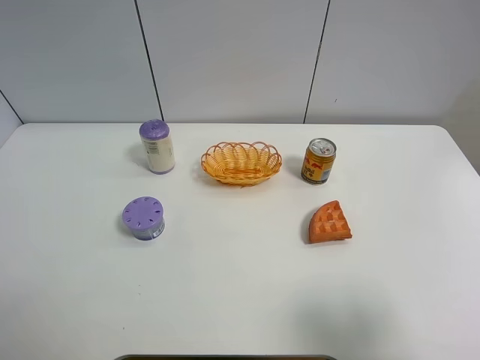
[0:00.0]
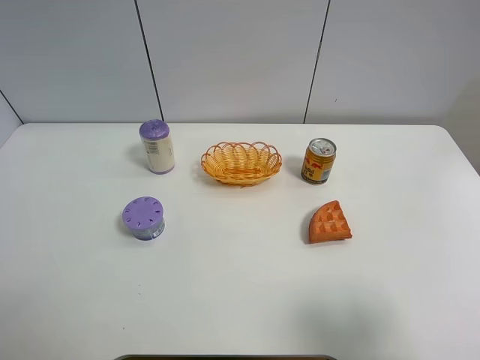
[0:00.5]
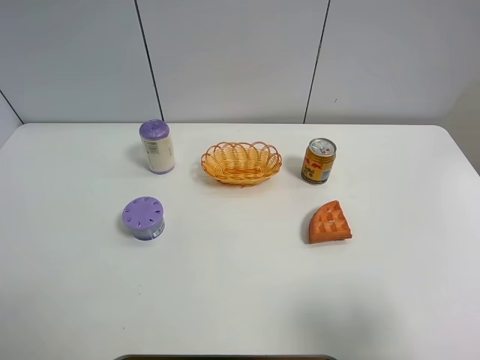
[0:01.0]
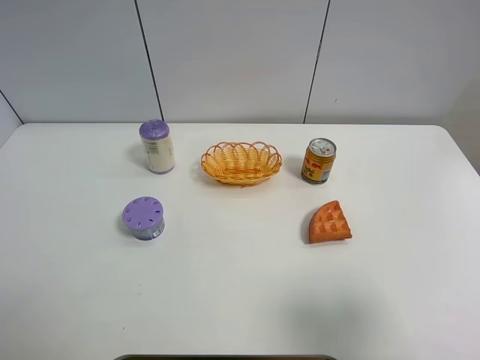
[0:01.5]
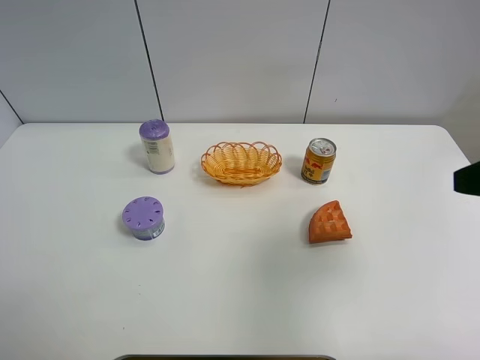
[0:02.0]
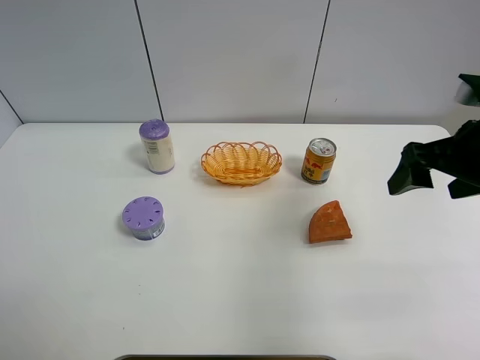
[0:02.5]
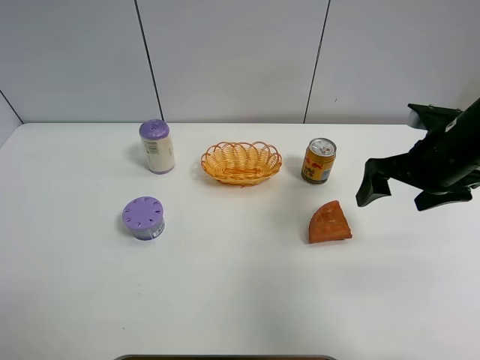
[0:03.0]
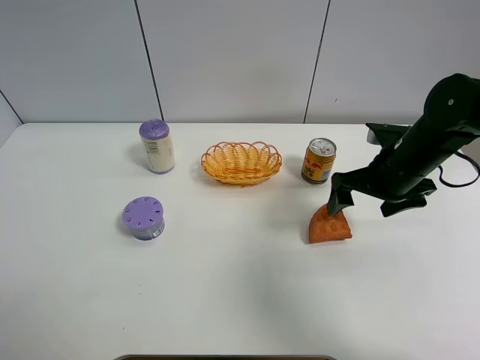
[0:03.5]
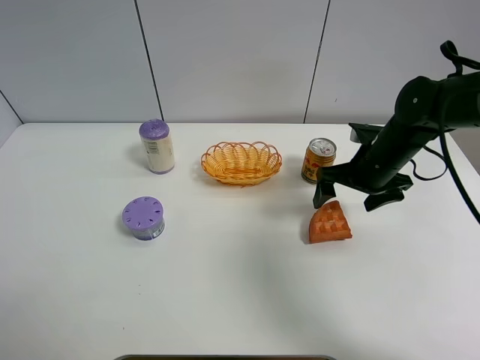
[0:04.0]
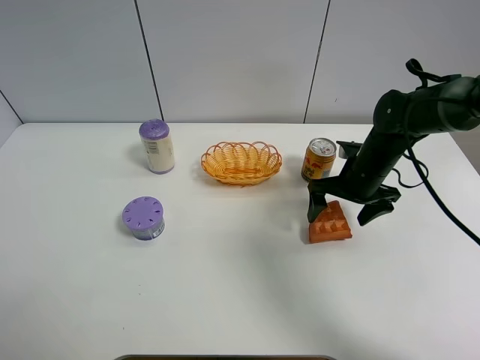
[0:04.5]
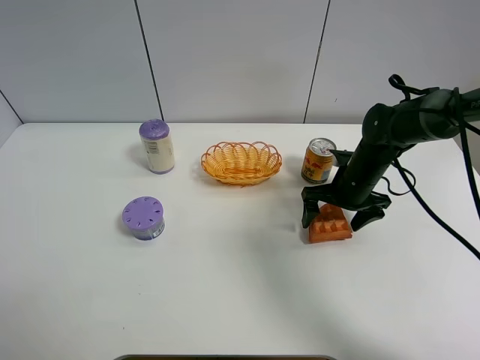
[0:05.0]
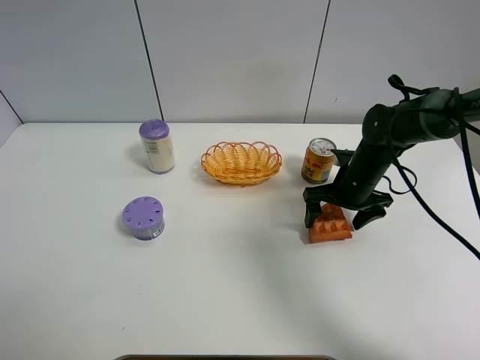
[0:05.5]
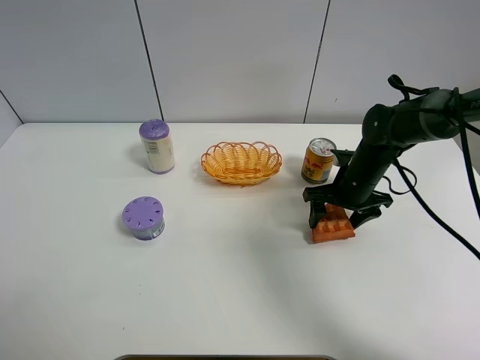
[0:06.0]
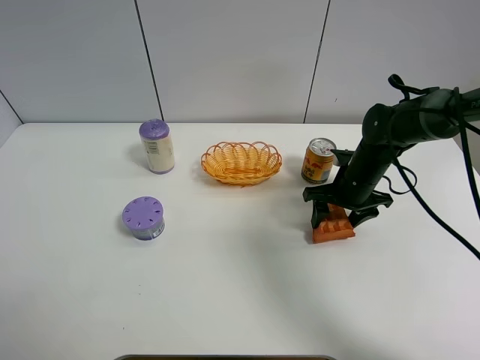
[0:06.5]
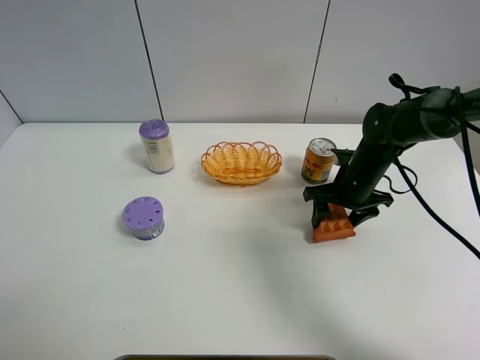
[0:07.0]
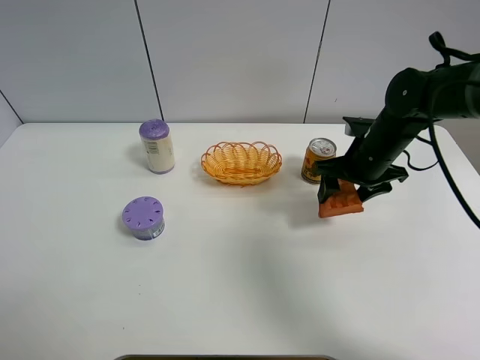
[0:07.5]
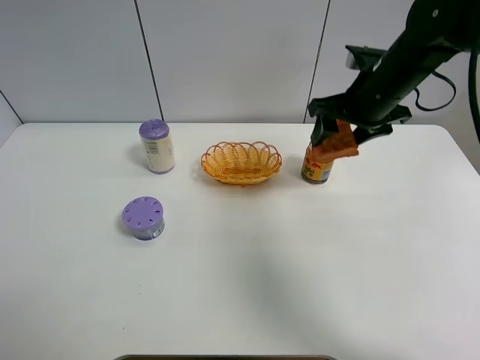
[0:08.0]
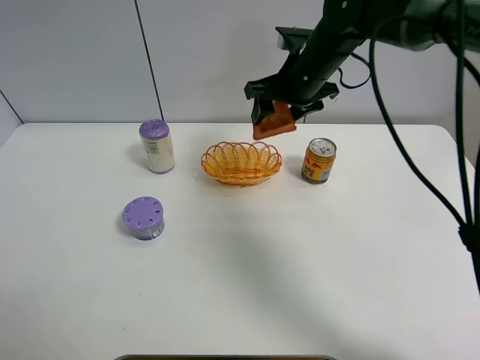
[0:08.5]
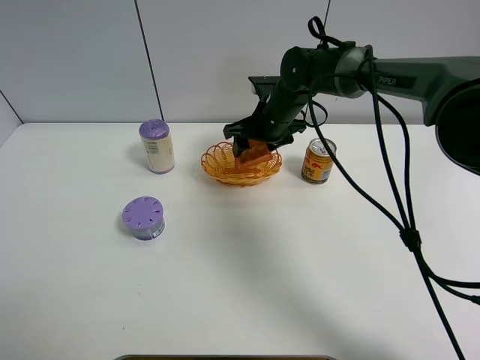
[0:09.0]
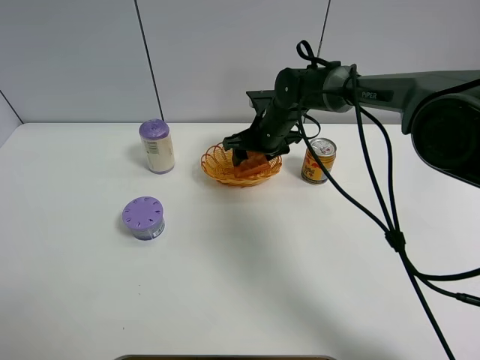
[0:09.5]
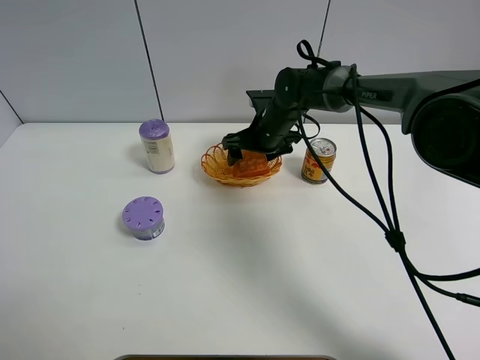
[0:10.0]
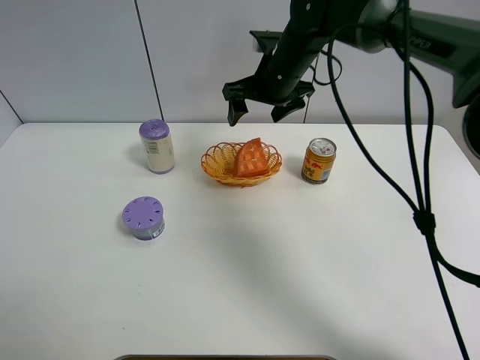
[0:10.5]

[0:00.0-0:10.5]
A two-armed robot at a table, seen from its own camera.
Task of the whole recording: Put the bakery in the basket.
Step, 0:00.0 to 0:06.0: Grasp the bread with right gripper.
0:00.0 to 0:02.0: The right gripper travels forward and upward by some 15 cm.
0:02.0 to 0:04.0: The right gripper moves forward and downward, some 30 cm, and opens its fingers.
0:04.0 to 0:06.5: The right gripper shifts about 5 cm downward, and closes up.
0:06.5 to 0:08.5: The right gripper travels upward, to the left and forward by some 20 cm.
0:08.5 to 0:10.5: The right gripper moves roughly 10 cm downward and comes back, and opens up.

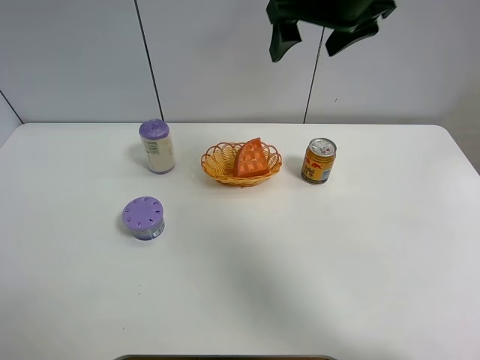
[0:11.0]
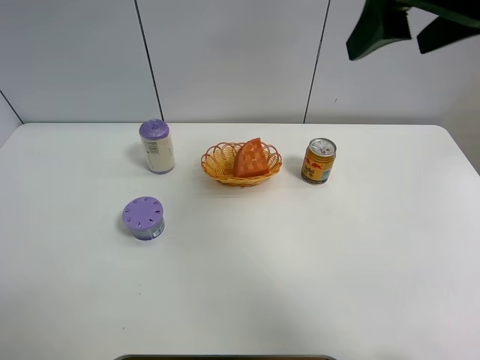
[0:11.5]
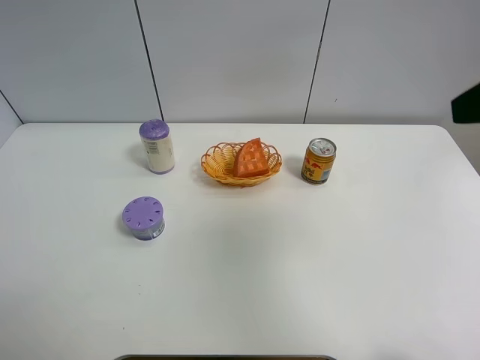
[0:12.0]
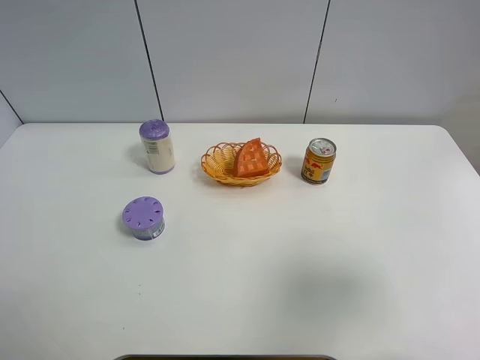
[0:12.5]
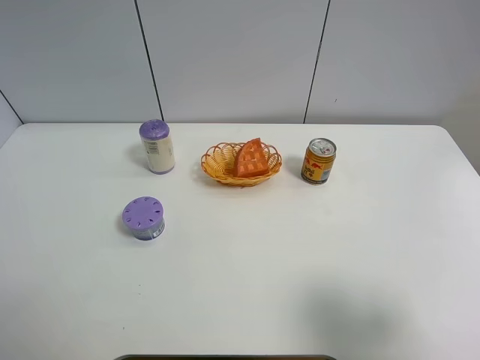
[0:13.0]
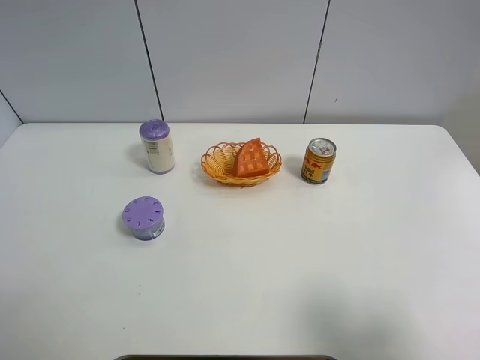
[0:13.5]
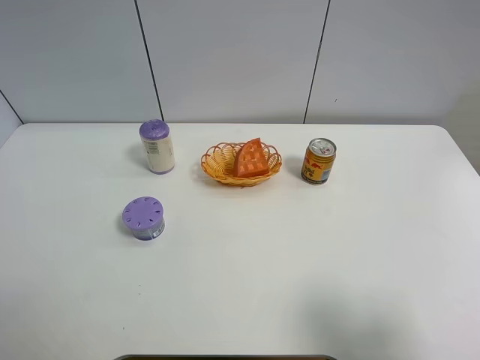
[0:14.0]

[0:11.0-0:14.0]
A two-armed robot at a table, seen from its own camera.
Task of the whole recording: Put the bakery in the basket.
0:11.0 to 0:12.5: The right gripper travels backward and to the right by about 35 cm.
0:12.5 to 0:14.0: The right gripper moves backward and downward, about 10 cm.

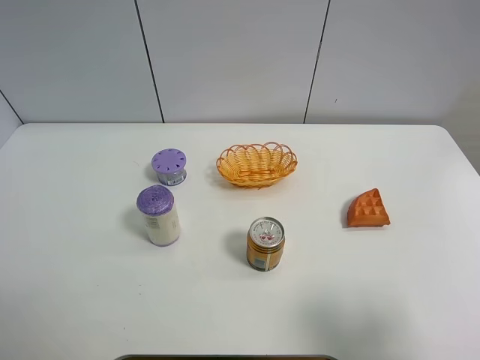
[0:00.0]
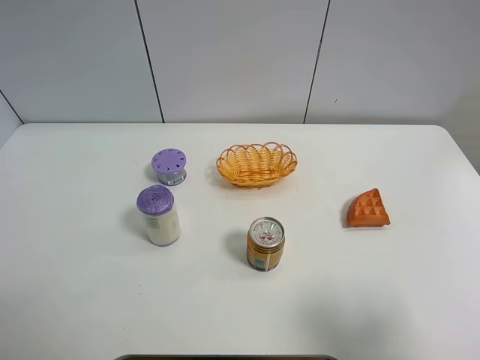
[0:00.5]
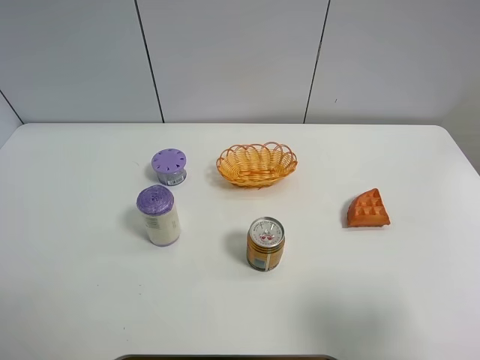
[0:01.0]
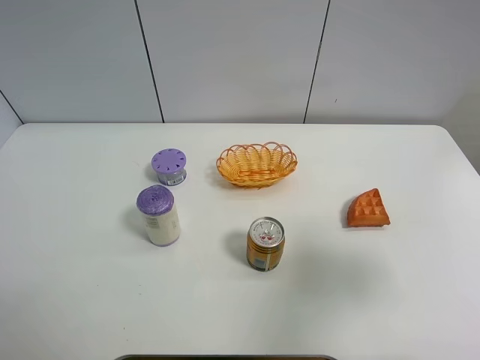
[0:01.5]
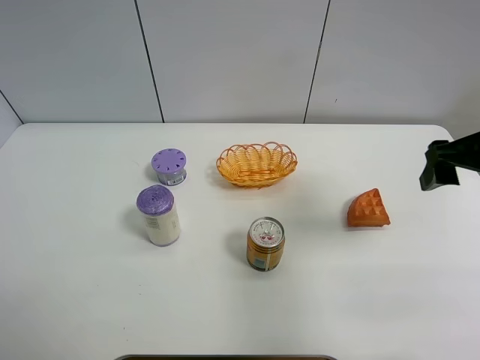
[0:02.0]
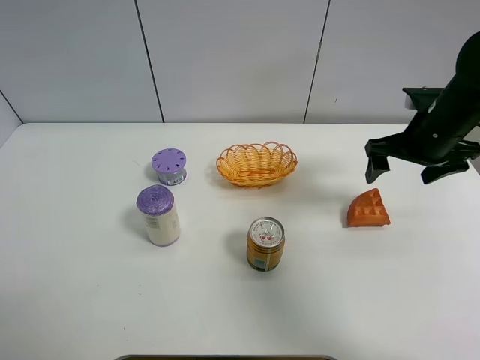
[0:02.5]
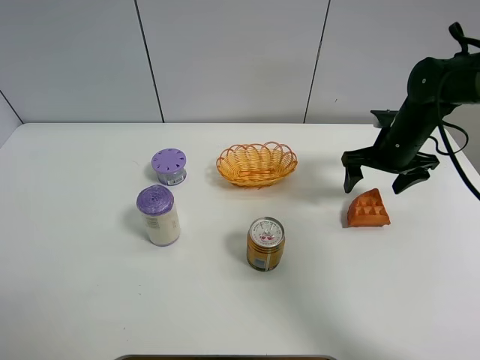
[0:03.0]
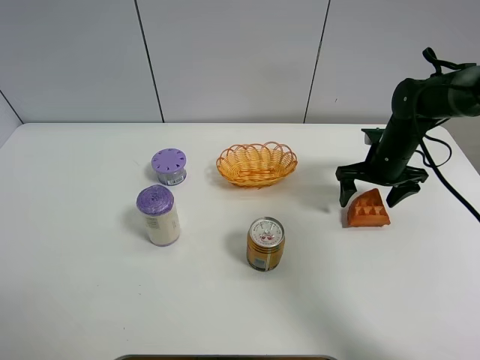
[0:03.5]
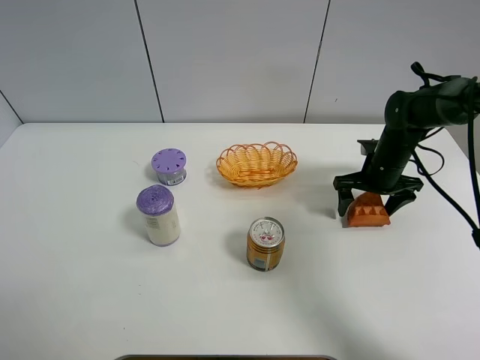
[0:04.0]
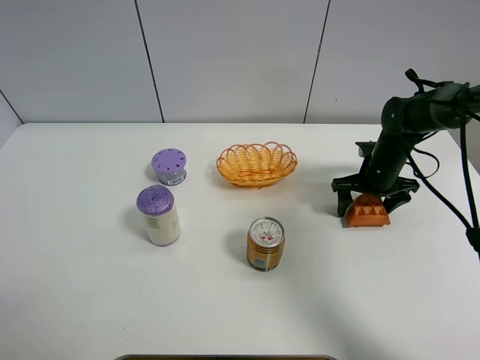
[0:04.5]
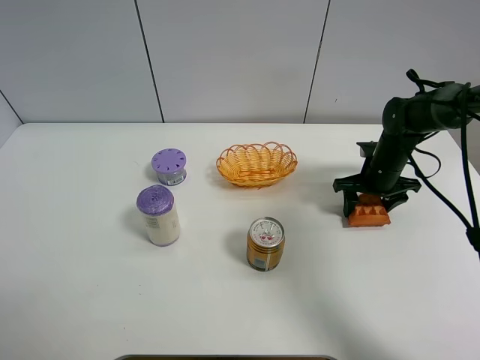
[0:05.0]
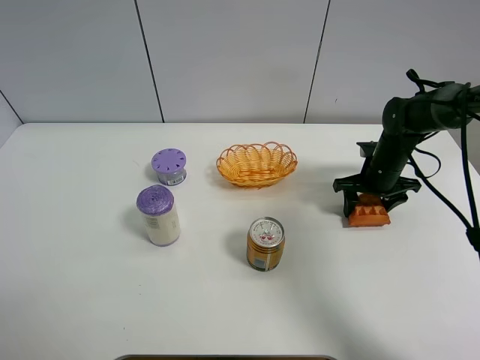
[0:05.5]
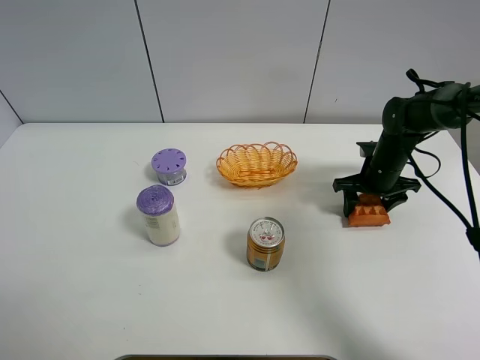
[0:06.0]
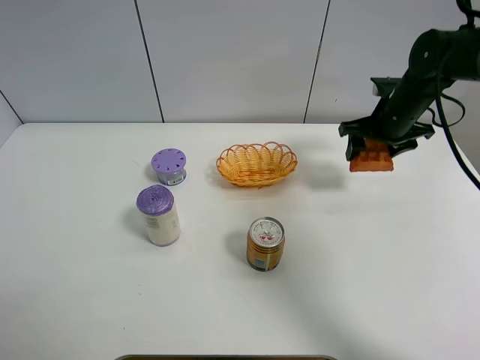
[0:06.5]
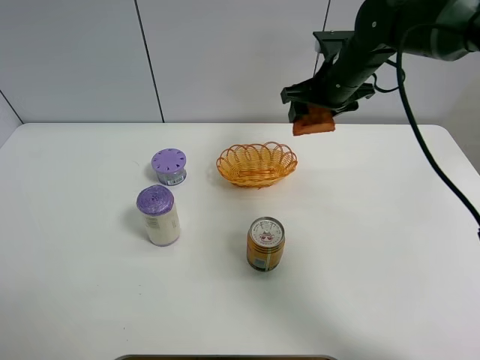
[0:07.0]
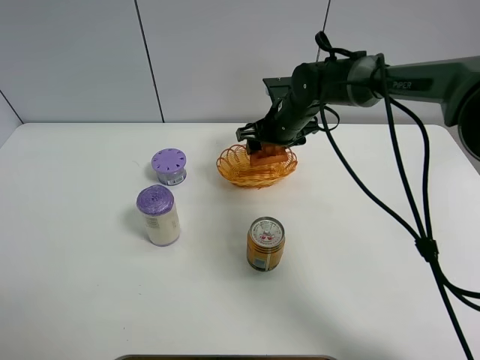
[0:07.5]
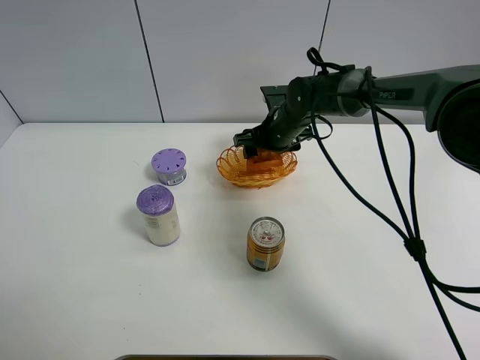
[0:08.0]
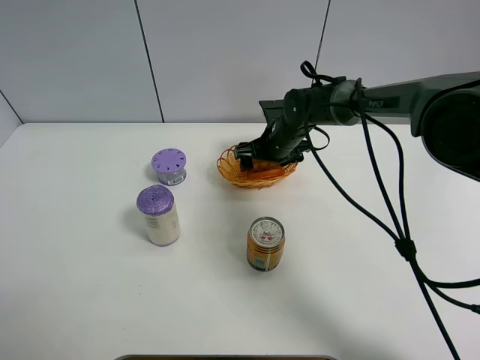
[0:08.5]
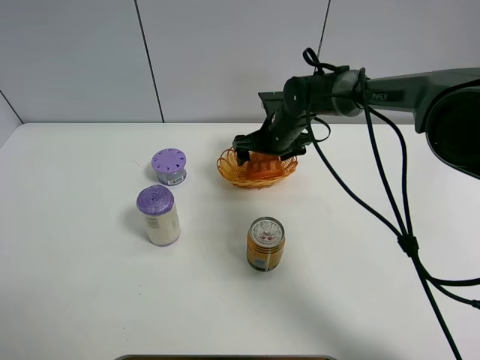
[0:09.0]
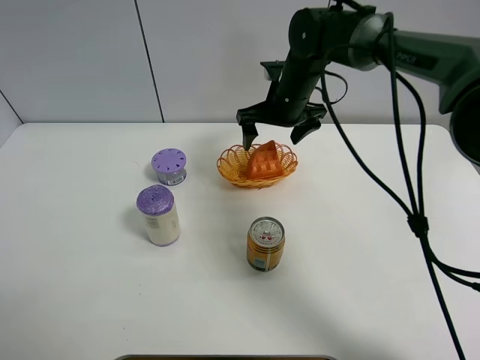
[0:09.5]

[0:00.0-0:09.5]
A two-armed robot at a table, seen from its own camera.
Task of the whole recording: Put the bakery in the basket.
Step, 0:00.0 to 0:05.0: Grasp the bread with right gripper.
Step, 0:05.5 to 0:09.0: Place the bread in the basket with right gripper.
0:00.0 to 0:02.0: The right gripper goes roughly 25 cm forward.
0:02.0 to 0:04.0: The right gripper goes some 25 cm downward and forward.
0:04.0 to 0:05.5: The right gripper closes up.
0:05.5 to 0:07.5: The right gripper goes about 20 cm to the left.
0:07.5 to 0:09.5: The right gripper travels upward by roughly 5 cm, and opens its fingers.

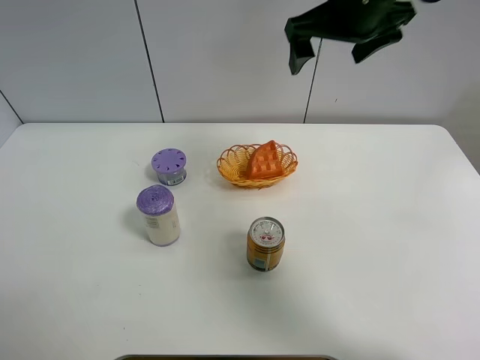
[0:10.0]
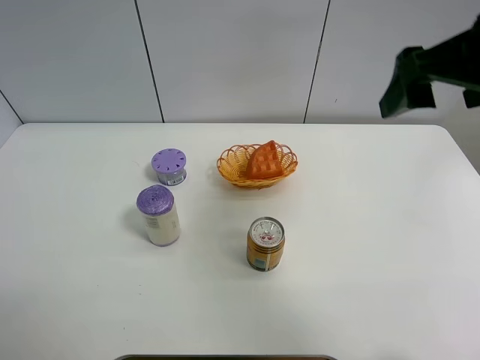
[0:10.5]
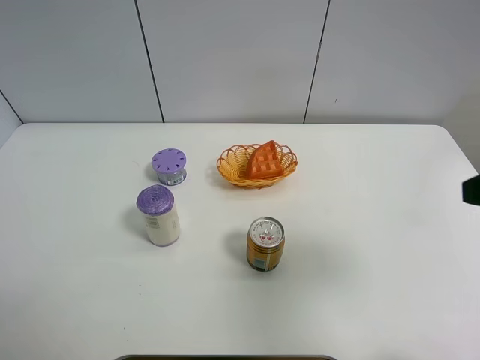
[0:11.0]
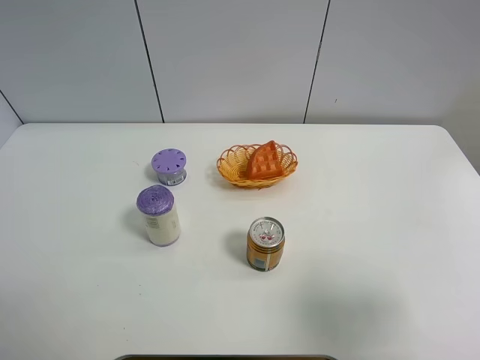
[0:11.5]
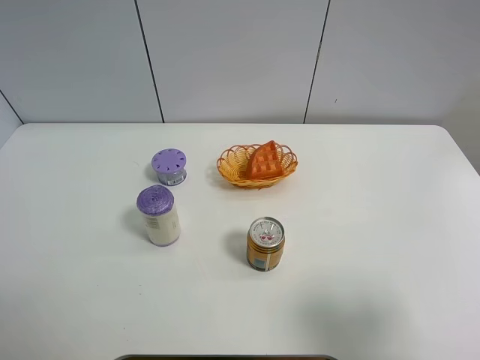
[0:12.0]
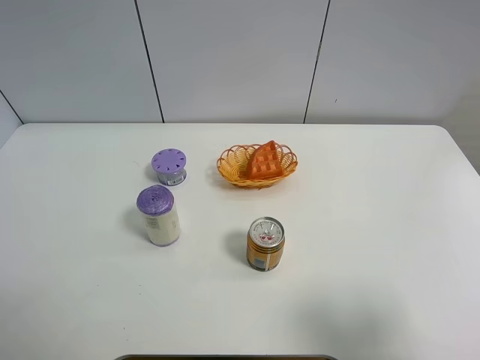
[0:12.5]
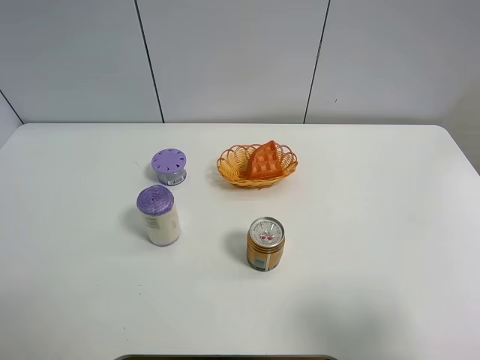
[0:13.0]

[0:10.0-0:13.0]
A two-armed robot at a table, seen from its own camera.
Task of the whole recording: Put the bakery in the basket.
0:10.0 to 0:11.5: The right gripper moves backward and to the right, about 35 cm.
